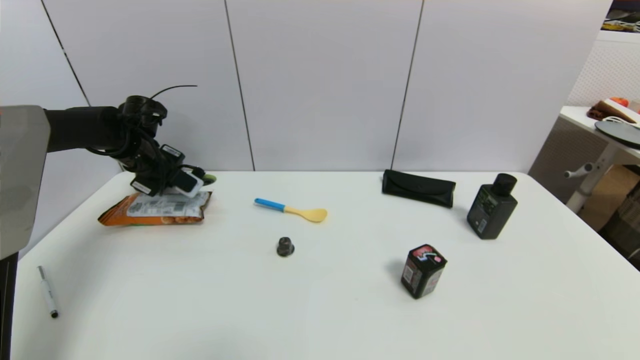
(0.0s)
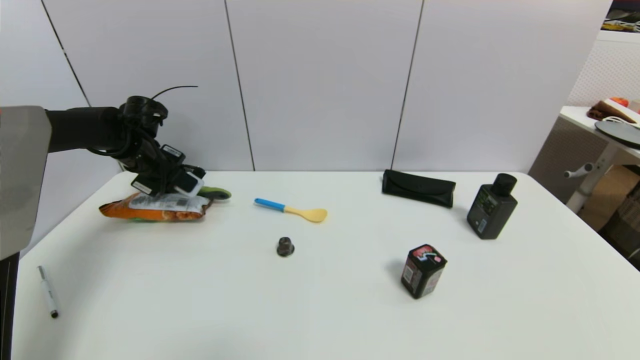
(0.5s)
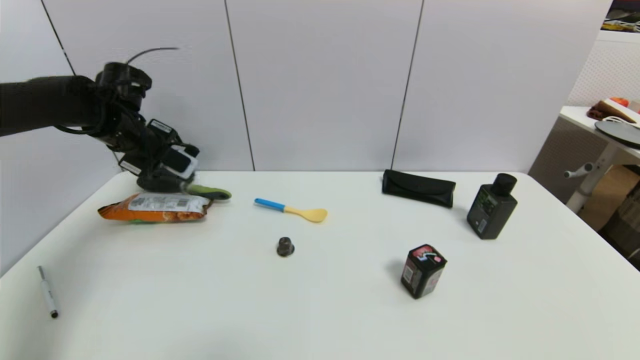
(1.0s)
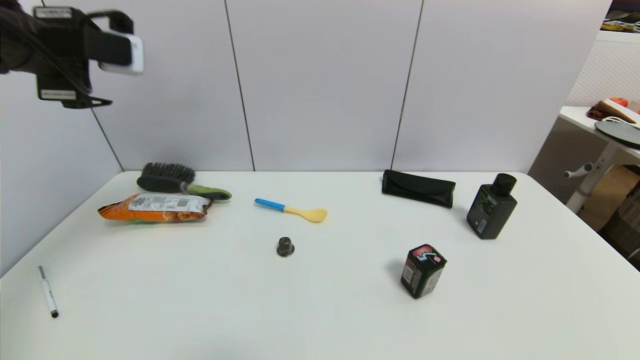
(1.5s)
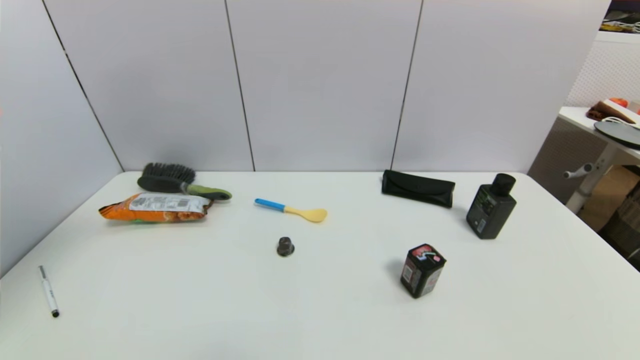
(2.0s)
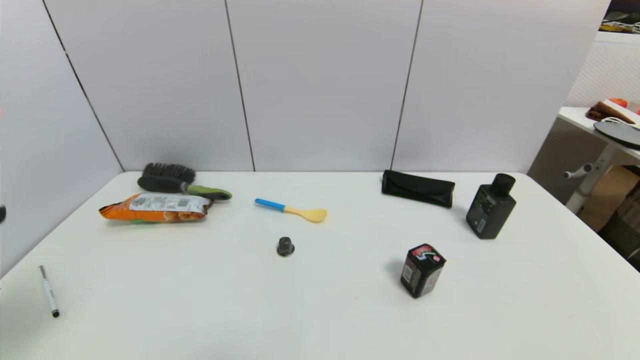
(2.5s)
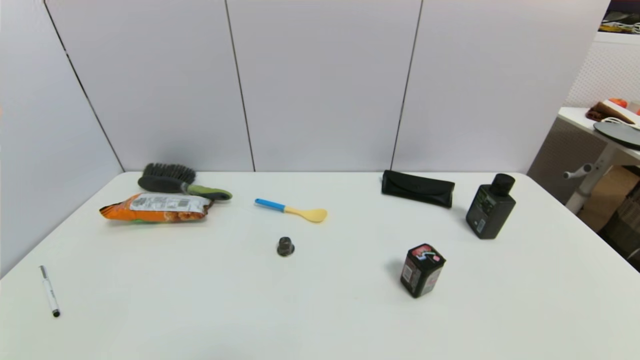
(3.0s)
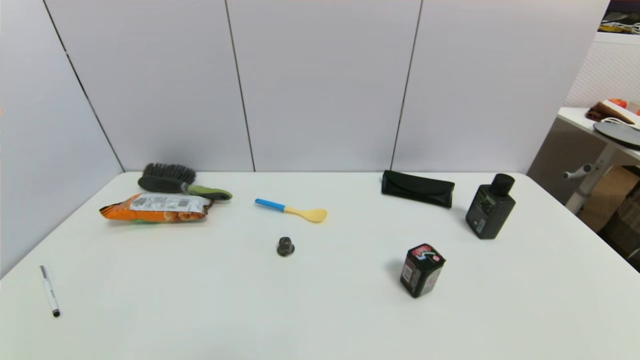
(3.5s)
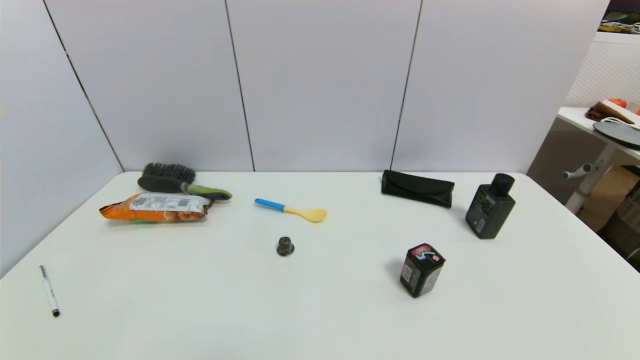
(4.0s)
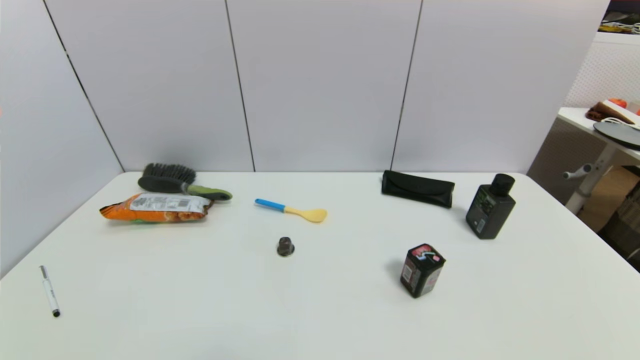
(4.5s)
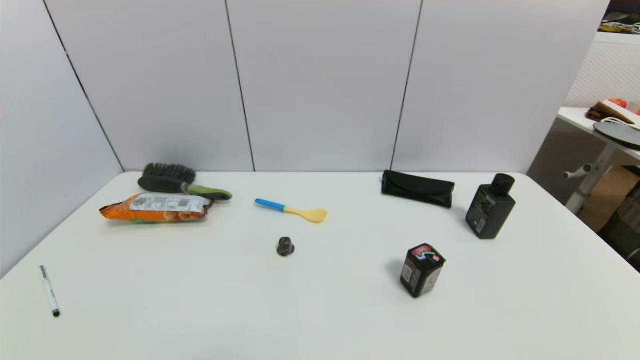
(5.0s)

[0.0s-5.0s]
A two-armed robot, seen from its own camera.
Task of the whole recording: put the brush in the designated position.
0.0s to 2.5s: The left gripper travels backward by about 40 cm, and opens up.
2.5s to 5.0s: The left gripper is displaced downward and backward by approximately 20 cm.

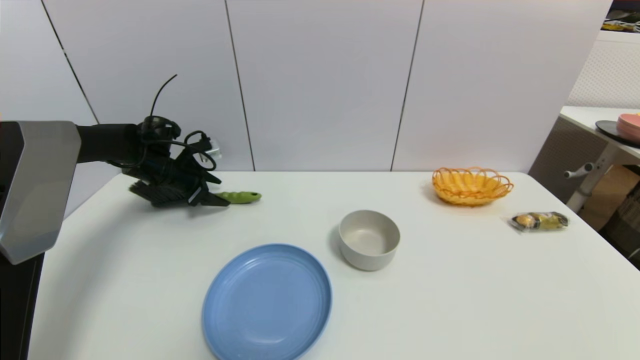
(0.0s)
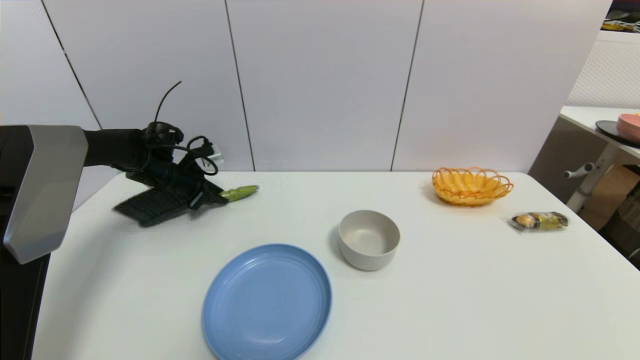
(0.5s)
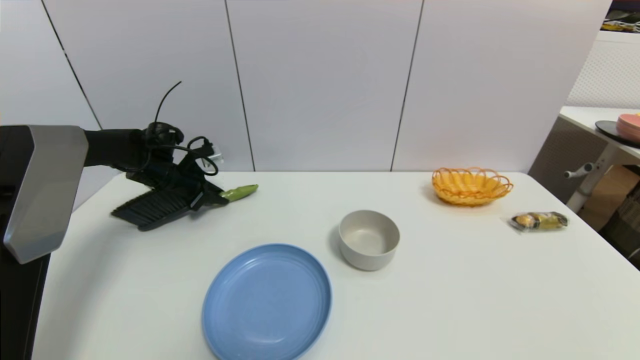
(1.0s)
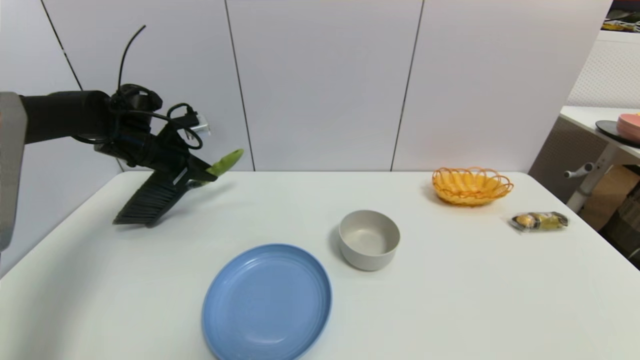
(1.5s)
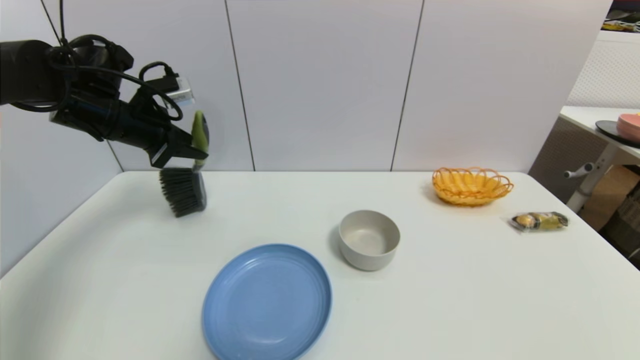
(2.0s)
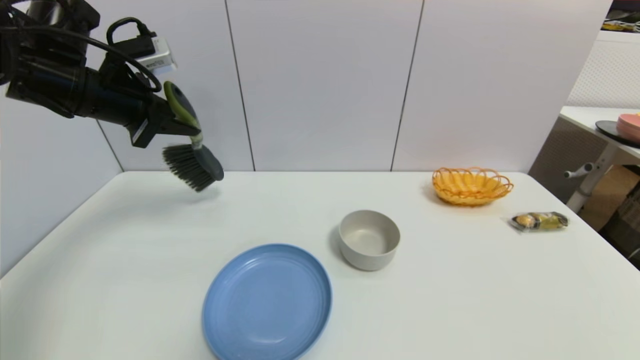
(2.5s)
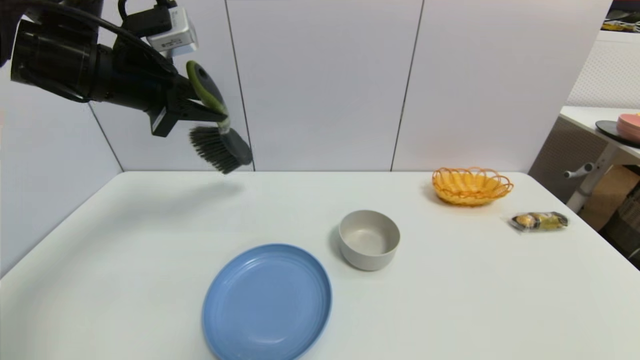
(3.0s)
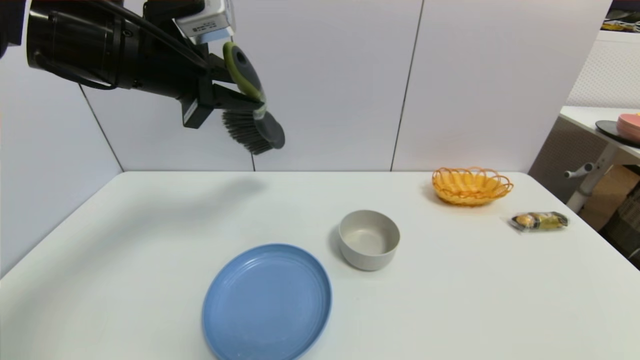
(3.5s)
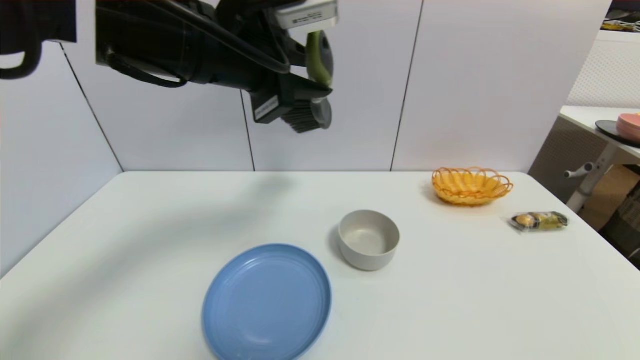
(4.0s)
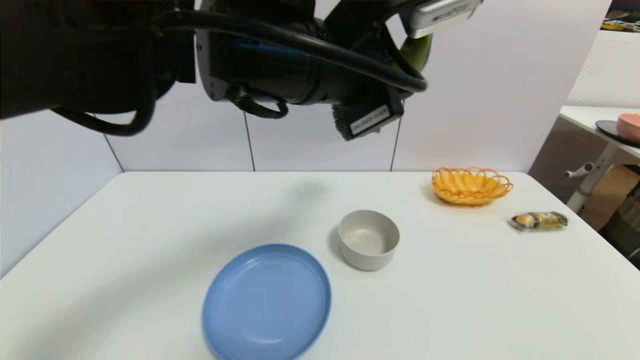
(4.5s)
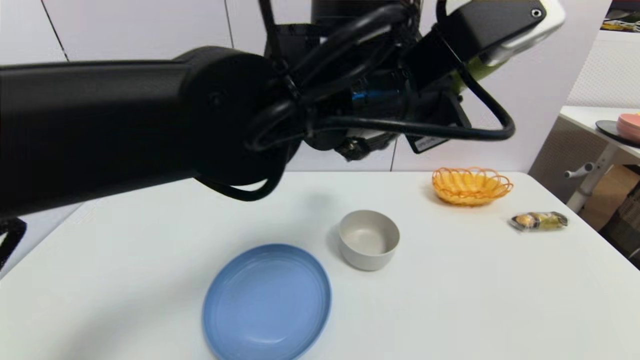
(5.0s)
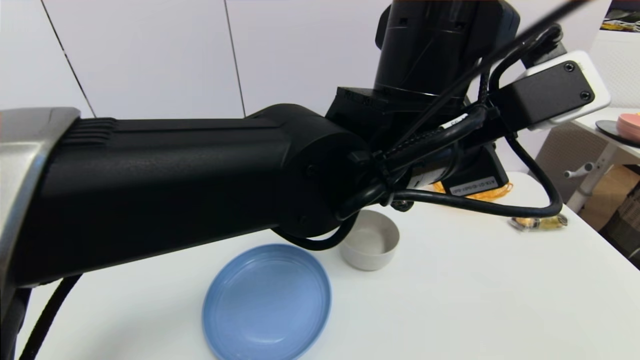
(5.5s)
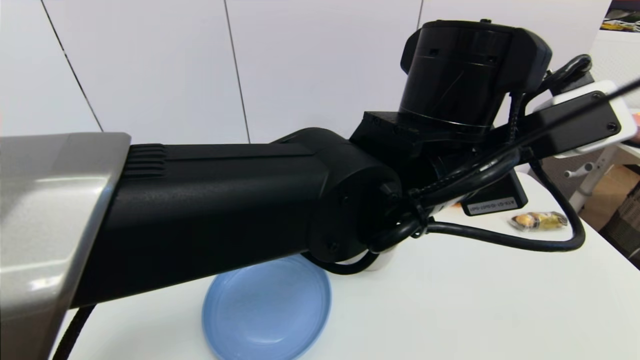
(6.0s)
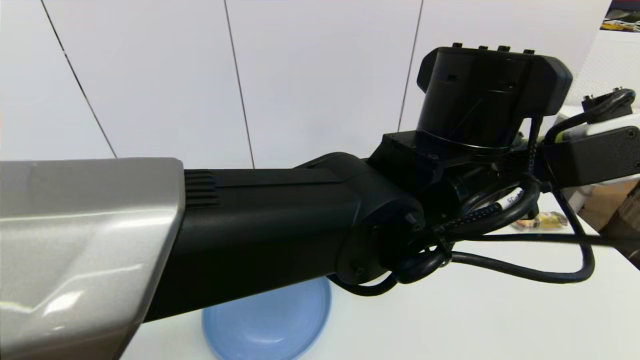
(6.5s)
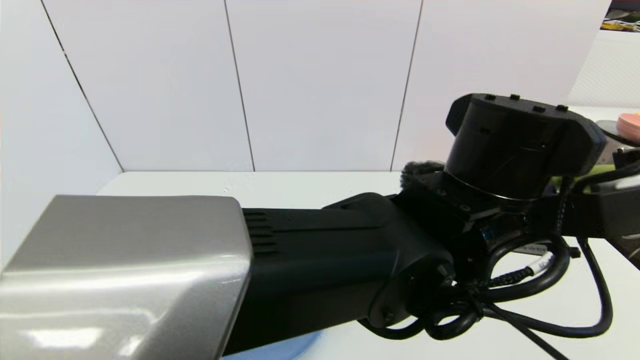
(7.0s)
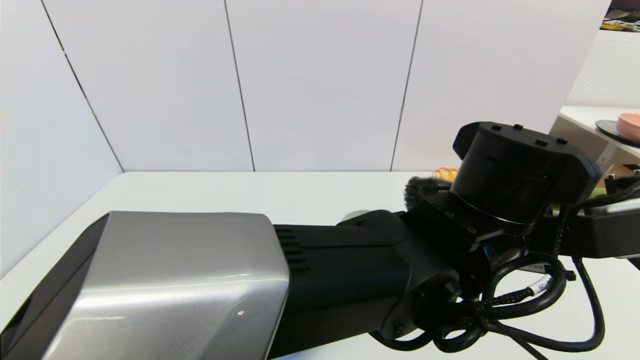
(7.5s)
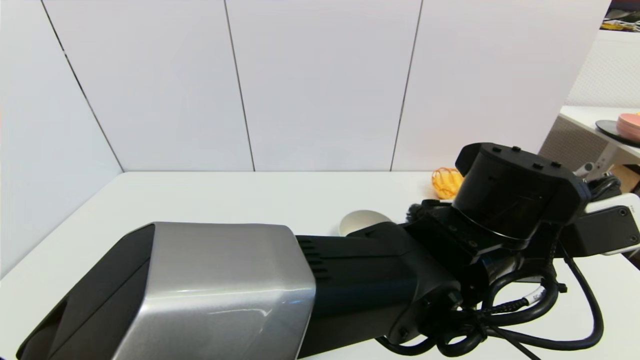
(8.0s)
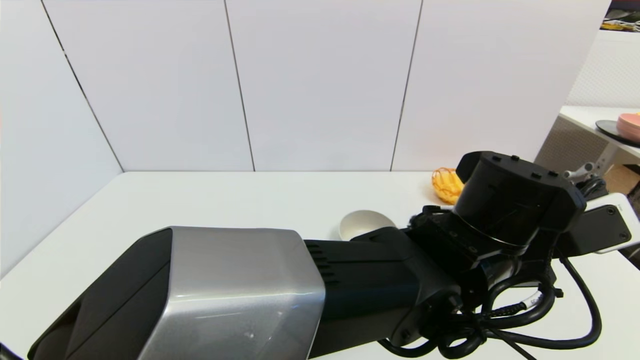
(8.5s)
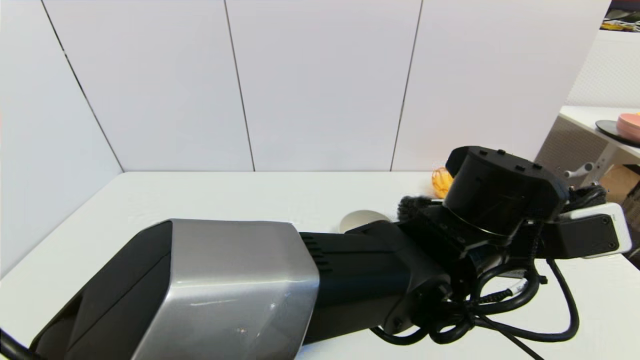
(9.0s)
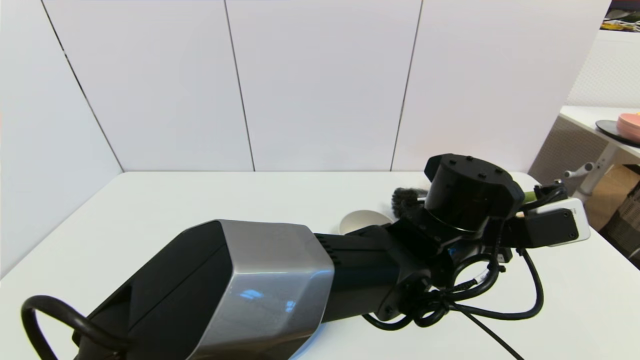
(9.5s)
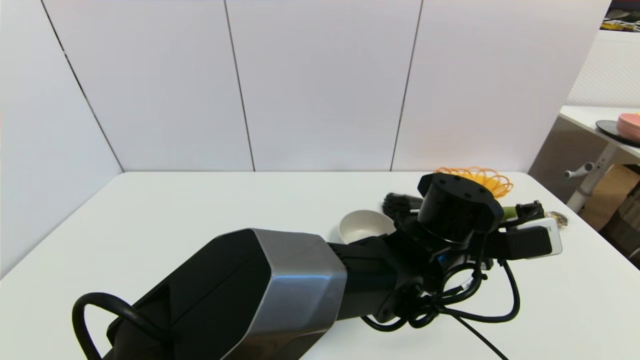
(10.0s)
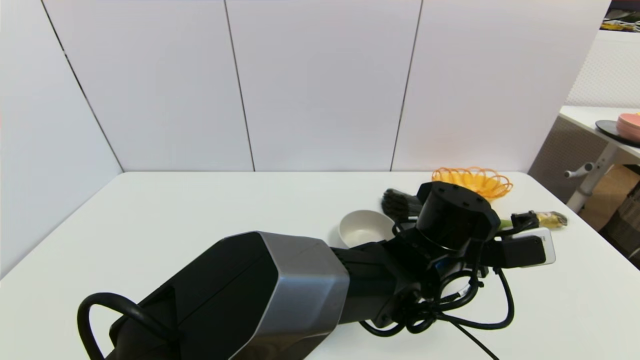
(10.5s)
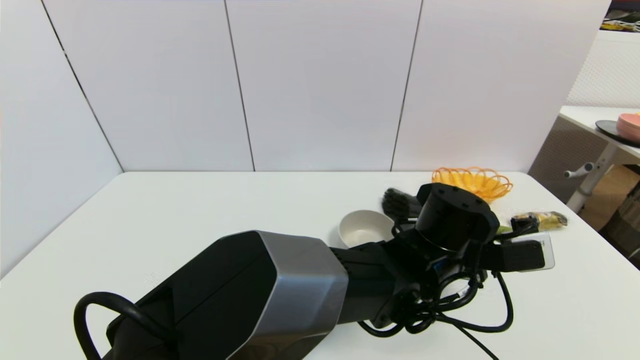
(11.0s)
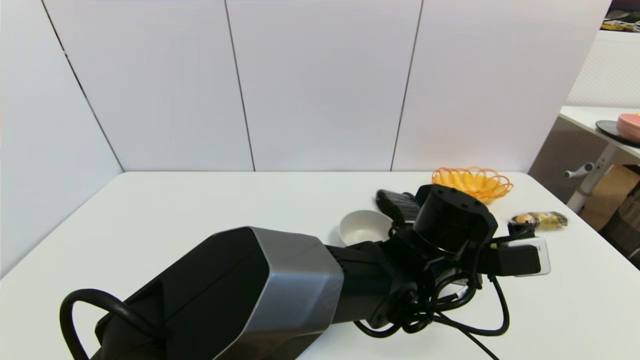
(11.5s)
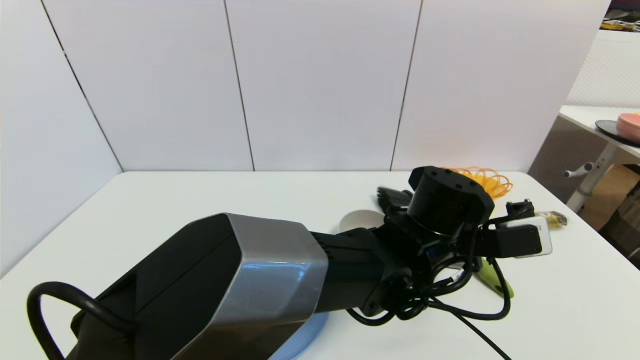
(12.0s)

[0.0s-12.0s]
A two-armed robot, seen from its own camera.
Task of the whole recording: put the brush in the designated position.
Step, 0.0s to 2.0s: Grasp the brush with left gripper.
Step, 3.0s to 12.0s: Place the brush on the table with left gripper.
0.0s to 2.0s: The left gripper shifts some 15 cm upward and backward, and closes up.
2.0s to 4.0s: The left gripper shifts approximately 25 cm to the right, backward and upward.
4.0s to 6.0s: The left gripper shifts approximately 20 cm to the right and downward.
6.0s to 8.0s: The left gripper shifts approximately 10 cm downward and to the right.
8.0s to 10.0s: The left gripper is displaced downward and forward by approximately 10 cm.
10.0s to 12.0s: The left gripper opens up.

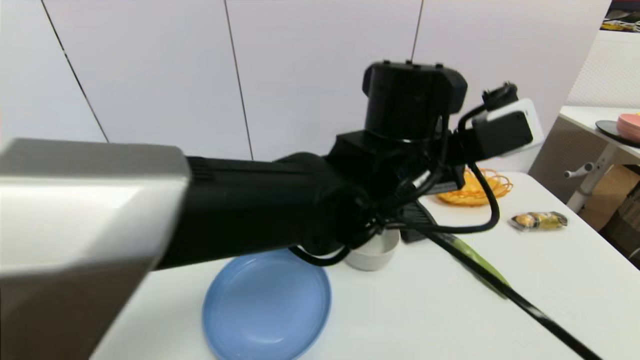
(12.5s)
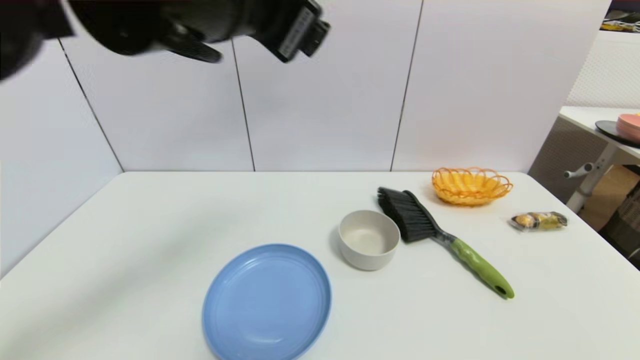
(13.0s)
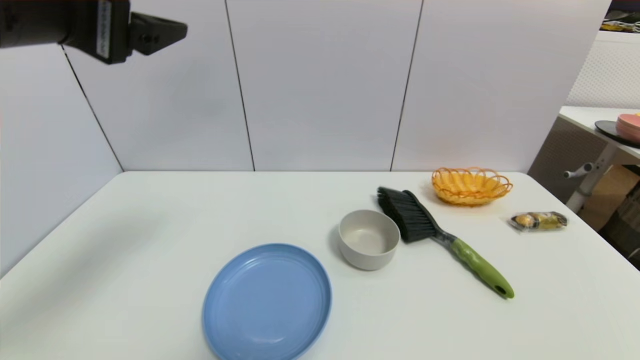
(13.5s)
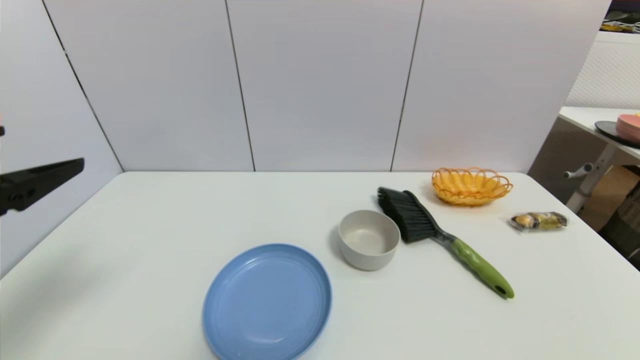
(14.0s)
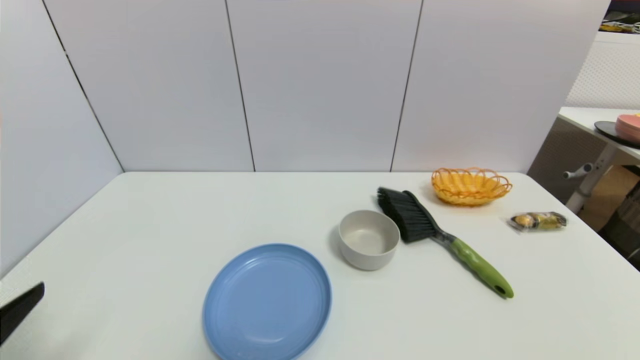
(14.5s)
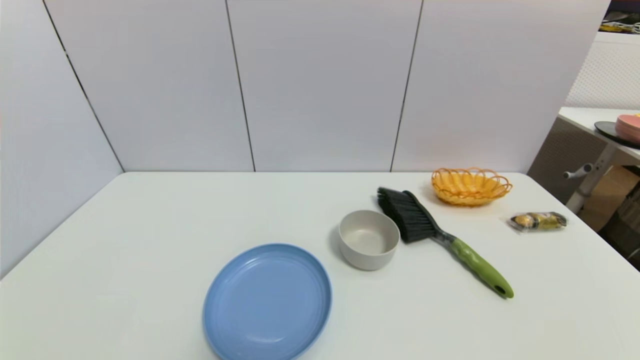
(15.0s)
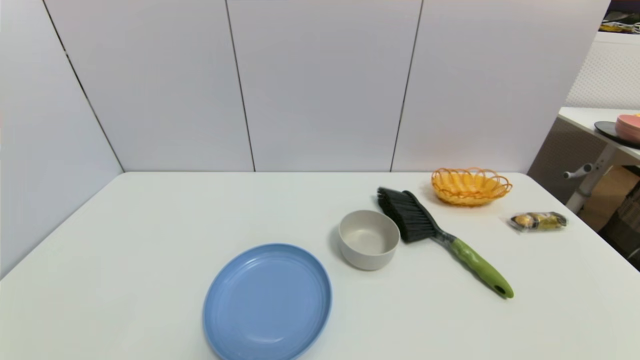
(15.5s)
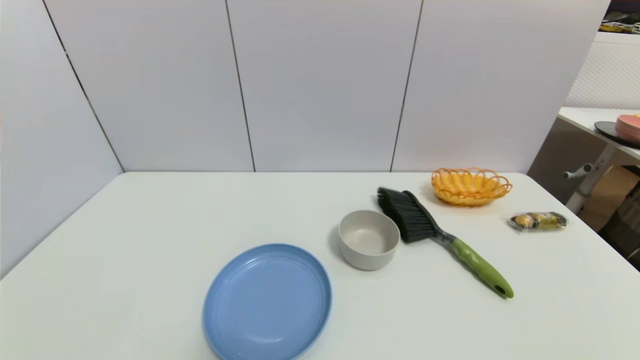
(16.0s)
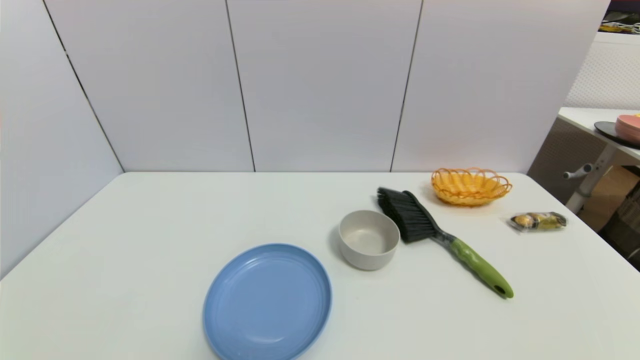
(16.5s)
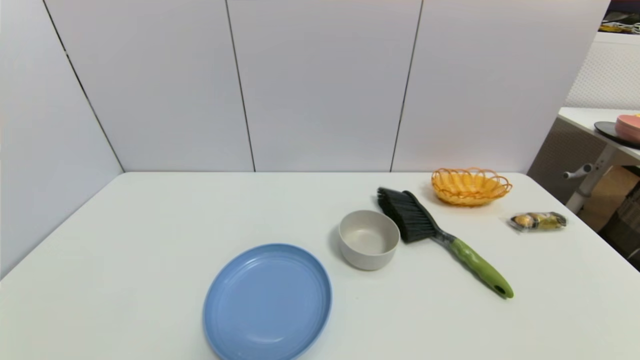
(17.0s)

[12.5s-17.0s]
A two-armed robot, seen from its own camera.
Task of the whole recording: put the brush in the designated position.
12.5s to 14.5s: The left gripper moves to the left and backward, some 40 cm.
14.5s to 17.0s: The left gripper heads downward and backward, covering roughly 15 cm.
